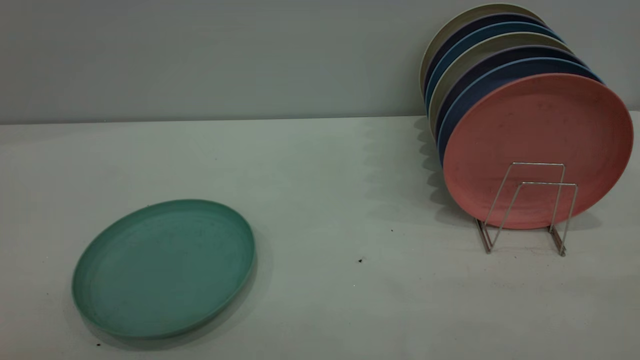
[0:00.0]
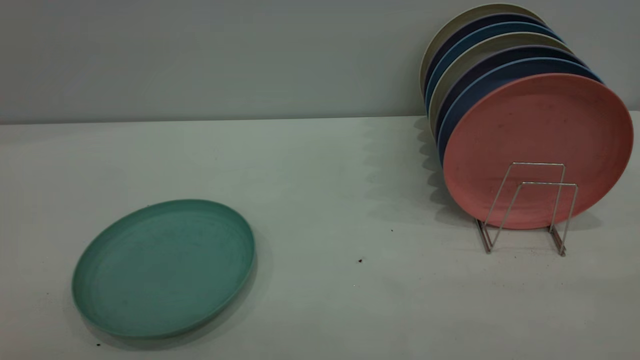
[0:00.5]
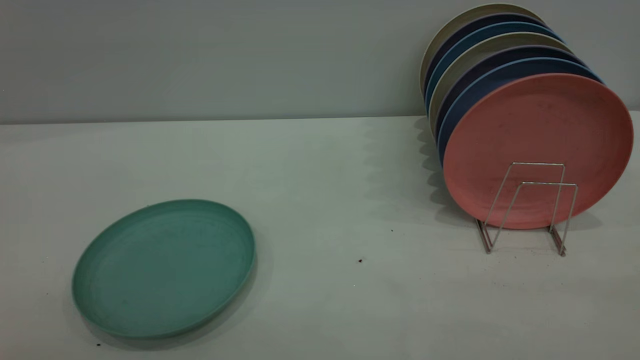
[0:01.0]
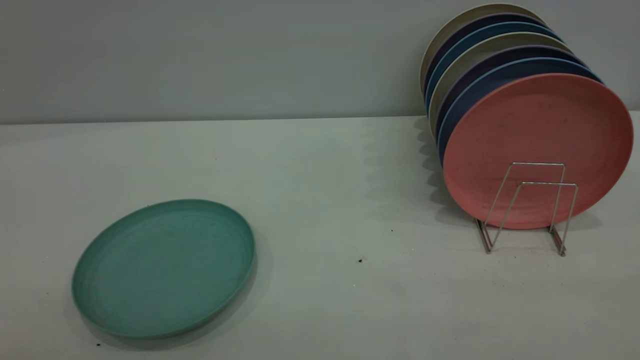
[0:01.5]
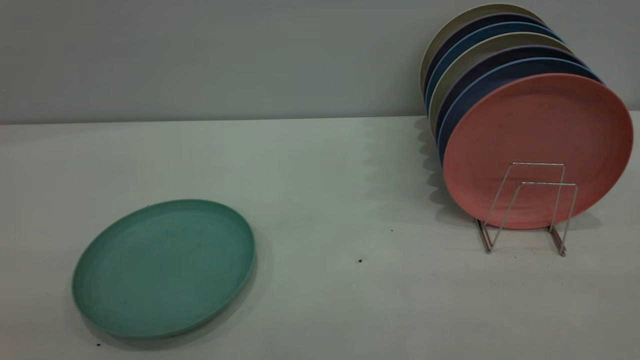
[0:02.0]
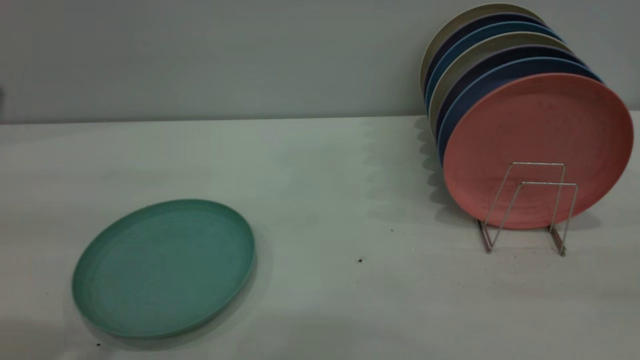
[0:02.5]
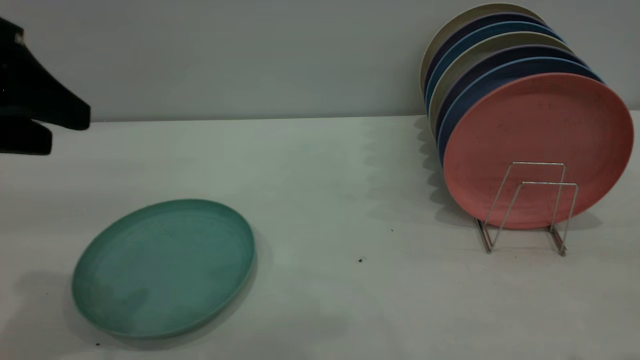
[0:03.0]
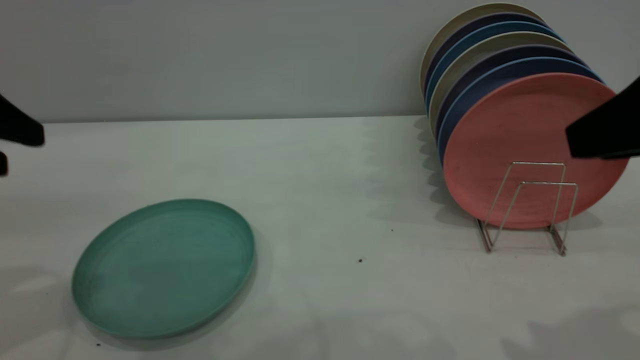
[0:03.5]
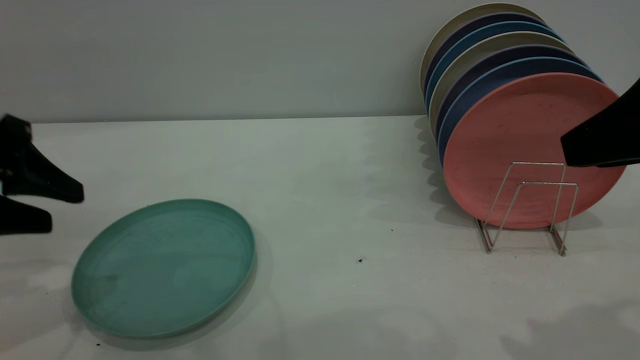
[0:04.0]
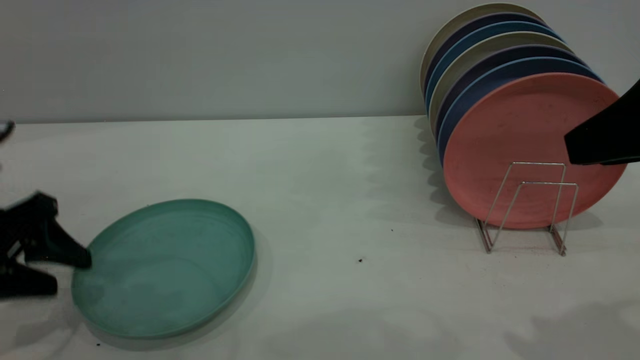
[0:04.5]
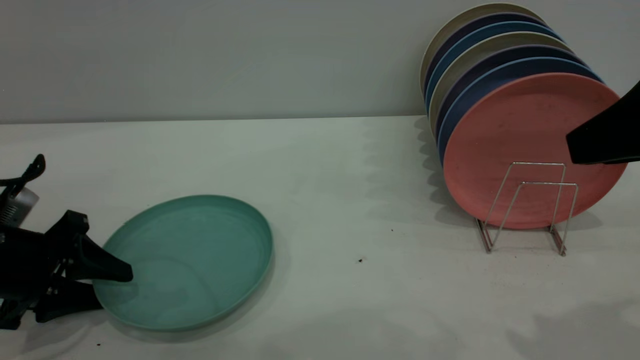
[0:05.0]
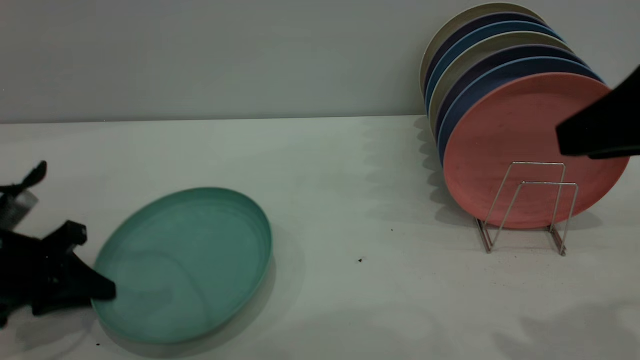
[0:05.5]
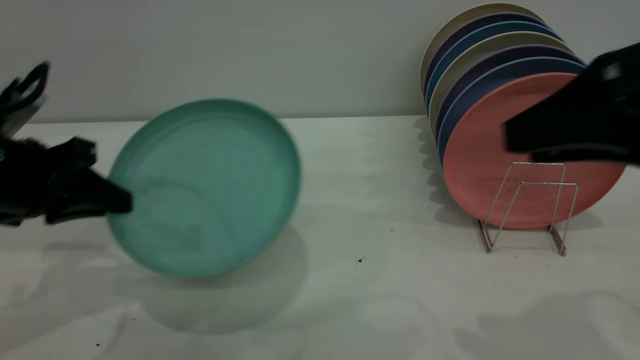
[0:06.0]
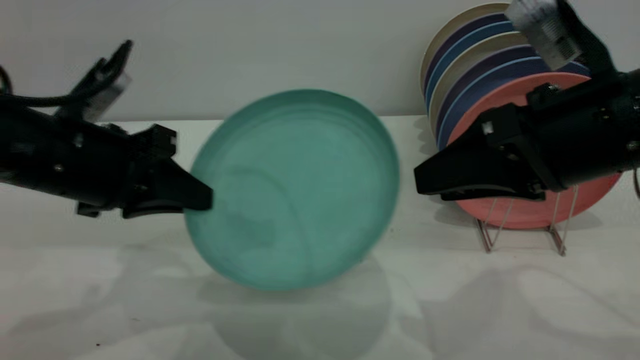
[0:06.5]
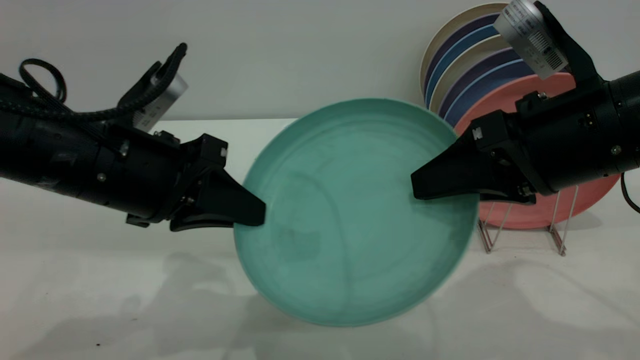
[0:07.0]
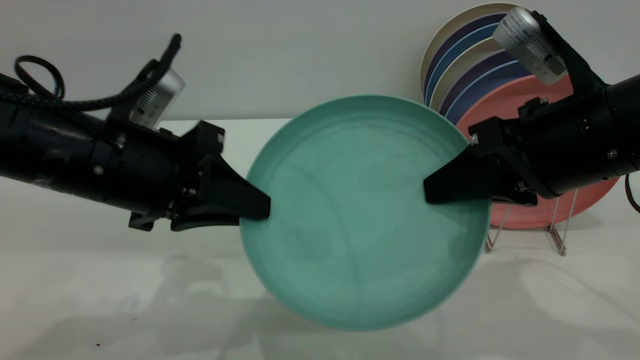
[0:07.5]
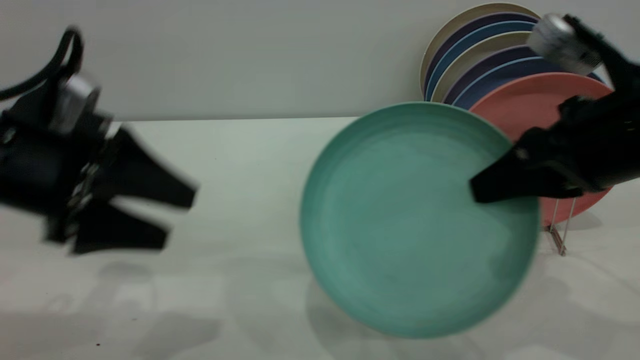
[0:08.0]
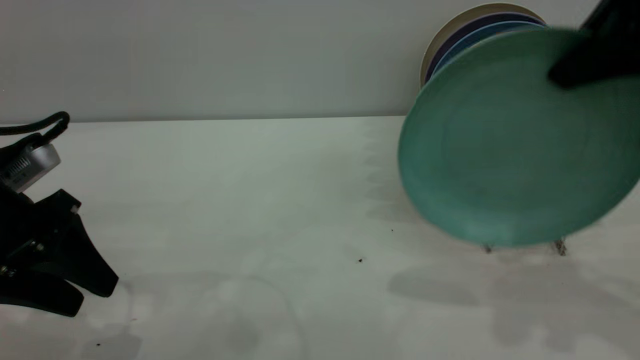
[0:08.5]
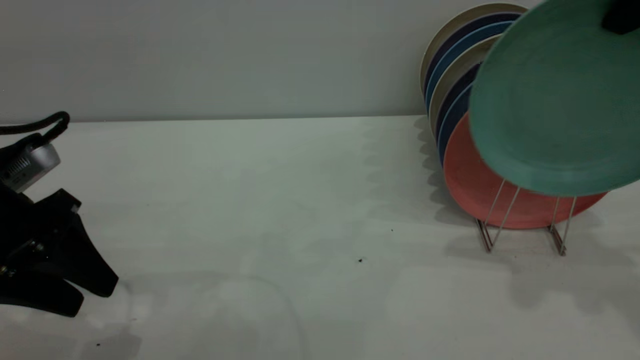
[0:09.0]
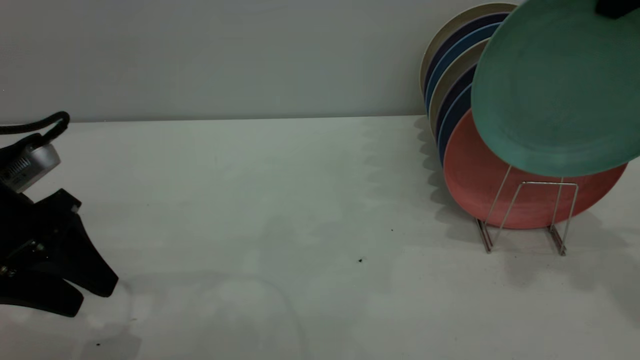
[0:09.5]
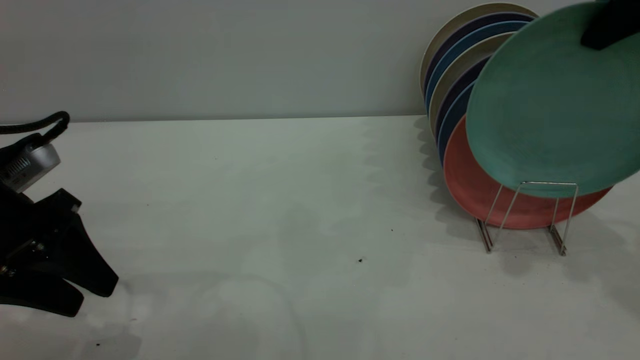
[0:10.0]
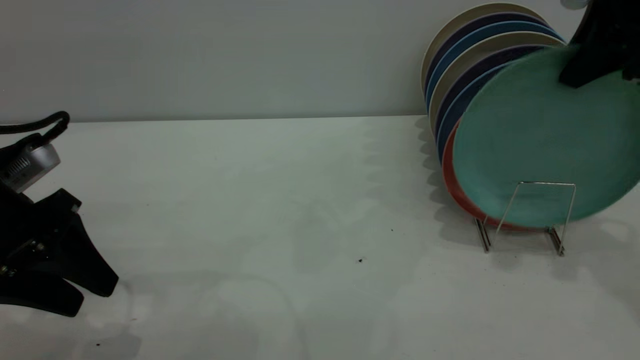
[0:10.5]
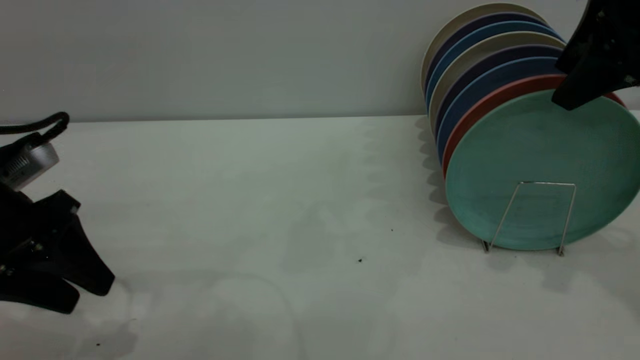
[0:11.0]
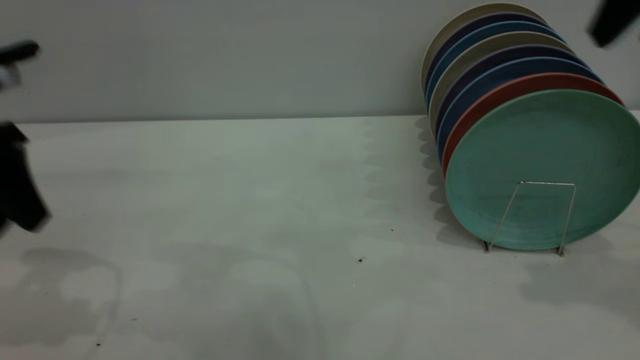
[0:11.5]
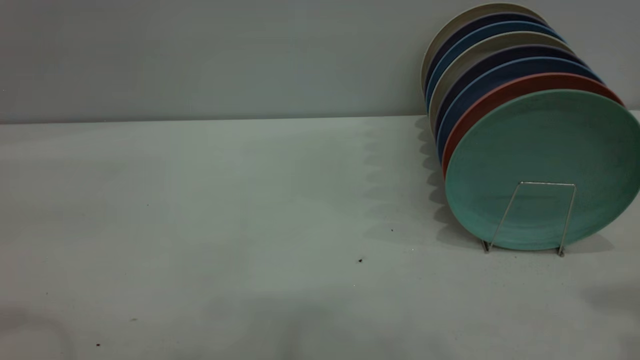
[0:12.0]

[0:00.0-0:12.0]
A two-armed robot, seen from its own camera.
Task of the whole recording: the left gripper grasp the green plate, the left gripper pass the green plate to the right gripper, and the right gripper place the green plate on the plate rack.
Step, 0:00.0 to 0:05.5: Pick up the plate with the left gripper.
Step, 0:06.0 to 0:07.5: Pass the plate from the left gripper to the right gripper.
Step, 0:08.0 to 0:11.0: Place the plate on the shelf.
0:02.0 to 0:04.0: The left gripper shifts approximately 30 cm forward and downward, while the right gripper goes approximately 20 cm forward.
0:04.0 to 0:06.0: The left gripper travels downward and back again, some 10 cm each way, and closes.
0:06.0 to 0:08.0: The right gripper is displaced forward by roughly 5 cm, and closes. Meanwhile the left gripper moves roughly 10 cm to the right and comes back, and opens its fingers.
0:08.0 to 0:10.0: The right gripper goes some 15 cm upward and forward.
0:10.0 to 0:12.0: The left gripper moves upward, about 20 cm. The right gripper is displaced backward and upward by some 20 cm, and opens.

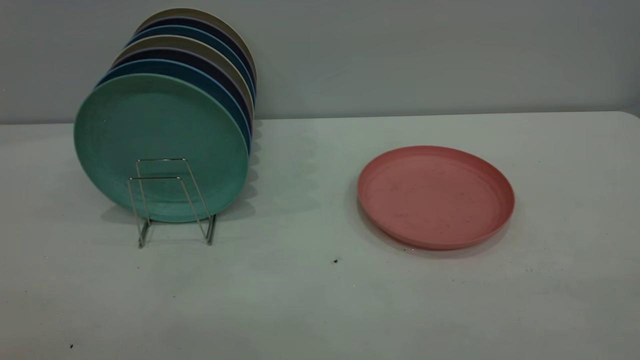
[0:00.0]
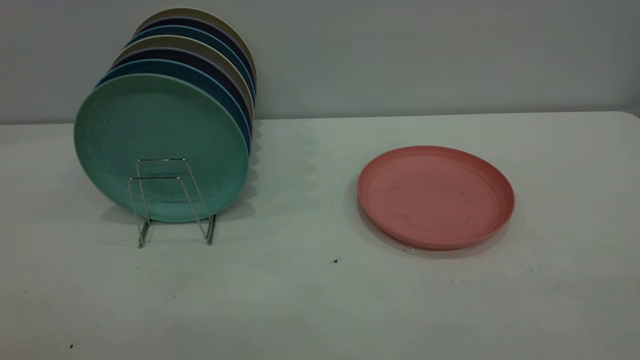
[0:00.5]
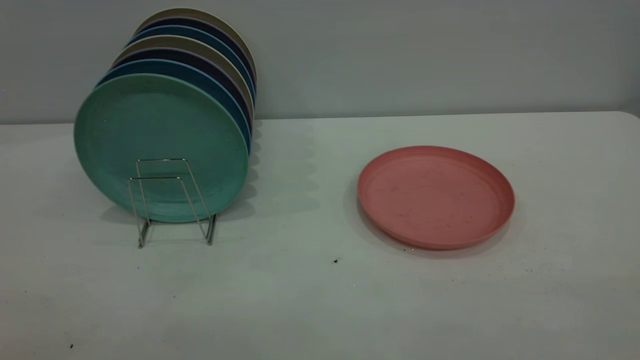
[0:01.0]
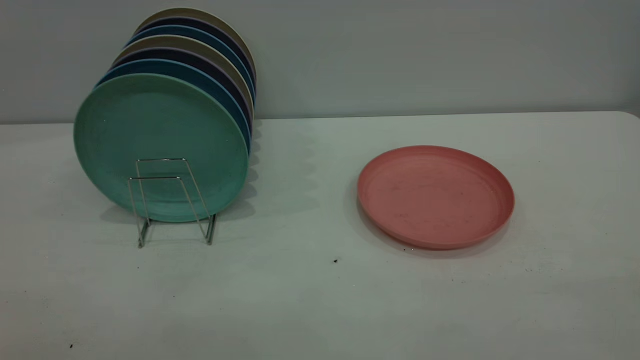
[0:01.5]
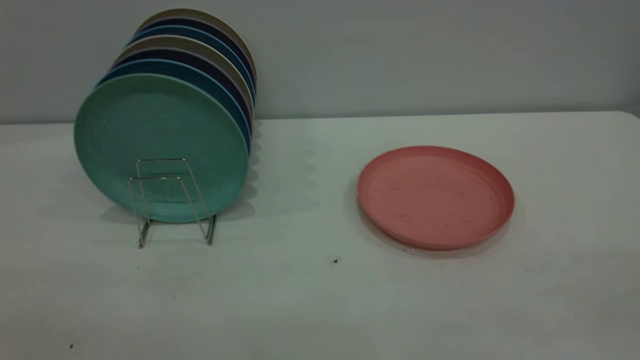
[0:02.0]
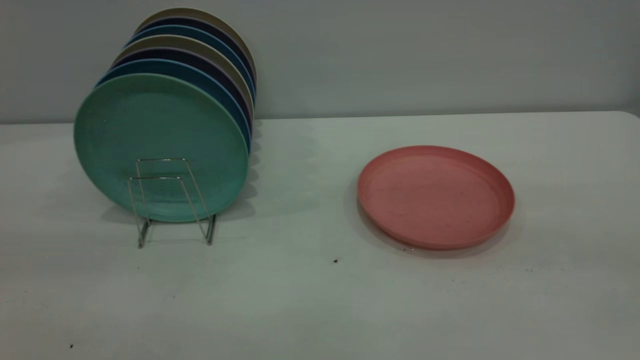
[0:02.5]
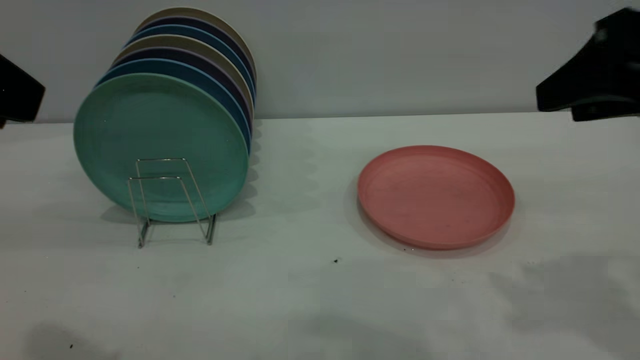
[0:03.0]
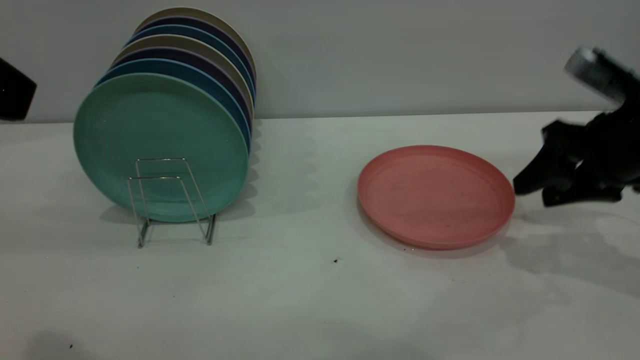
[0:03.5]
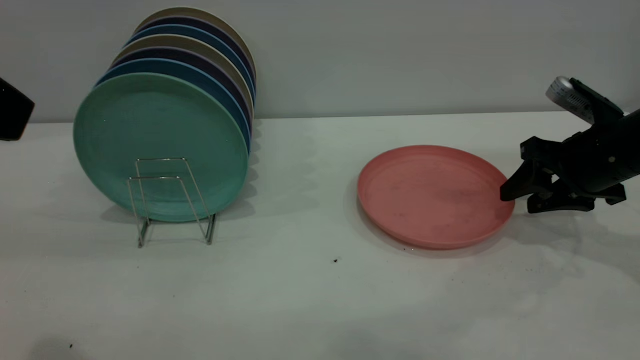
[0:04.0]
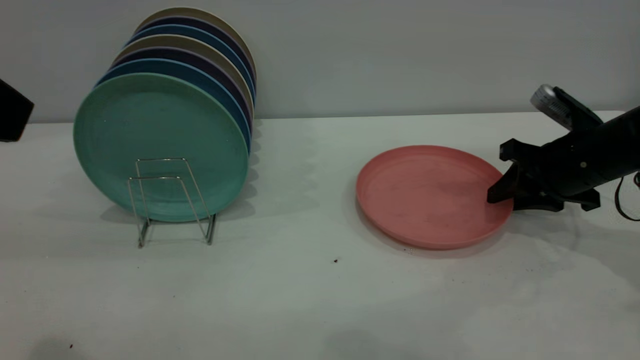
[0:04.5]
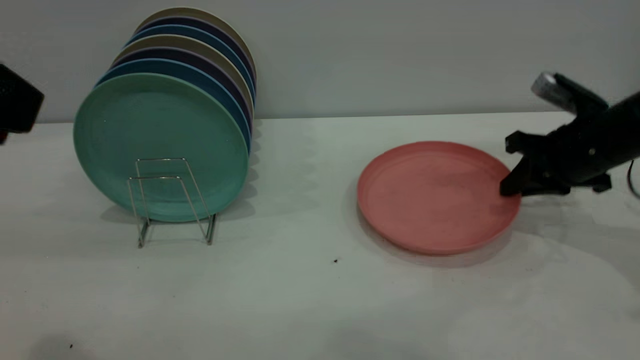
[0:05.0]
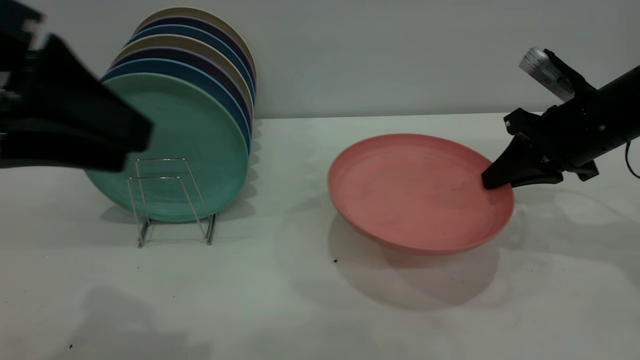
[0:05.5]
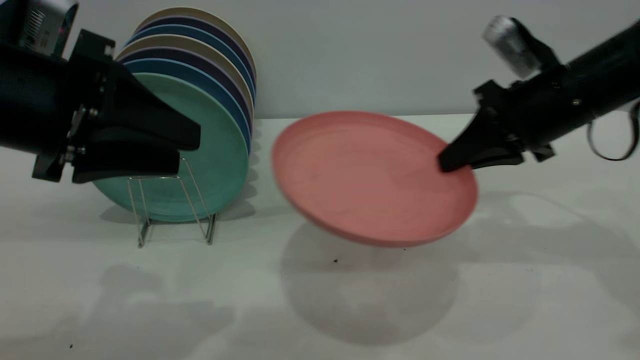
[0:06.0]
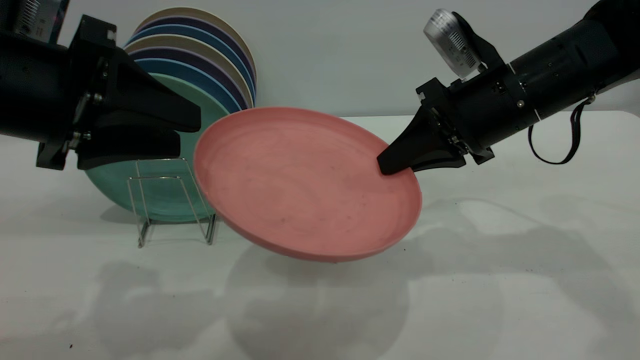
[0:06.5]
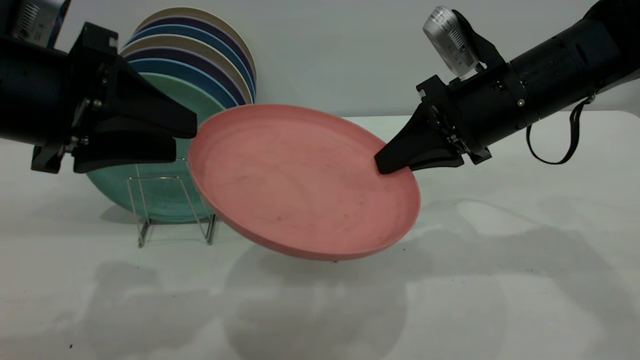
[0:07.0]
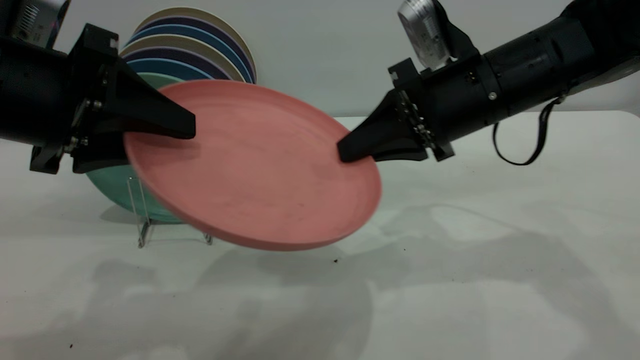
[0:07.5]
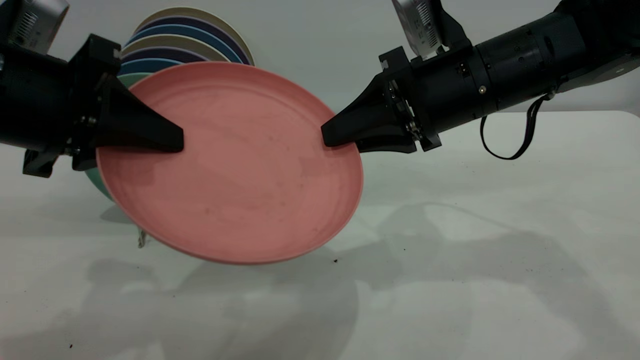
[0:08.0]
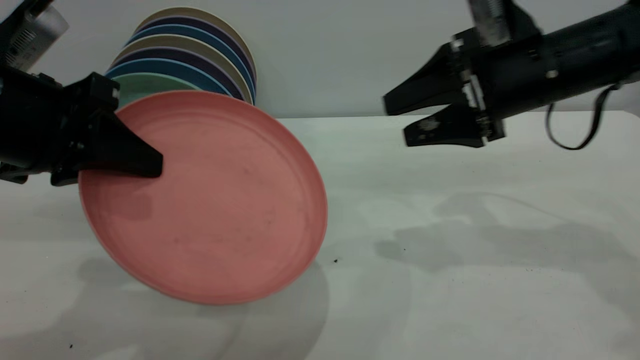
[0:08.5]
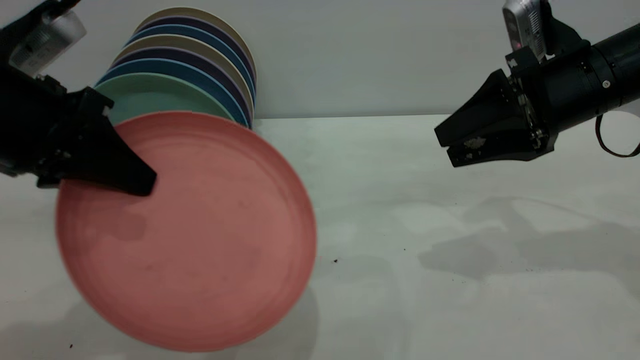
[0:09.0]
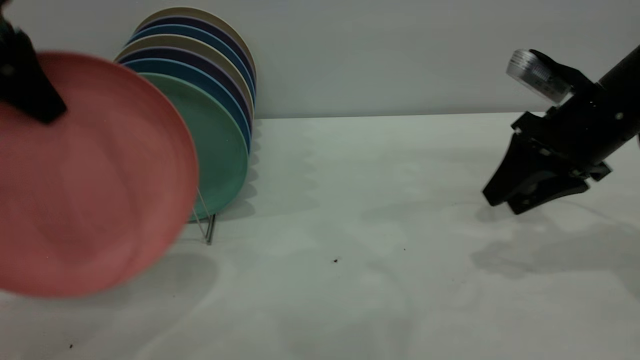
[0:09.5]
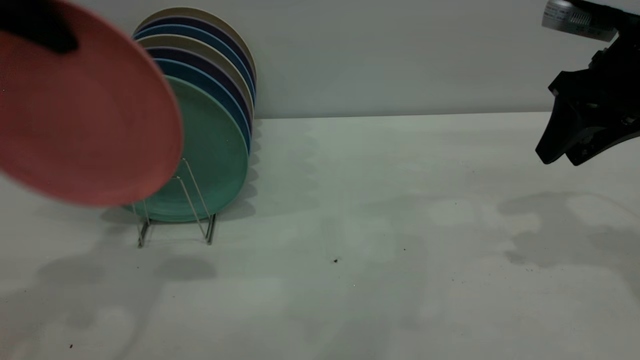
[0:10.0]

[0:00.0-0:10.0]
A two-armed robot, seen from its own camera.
Task of the whole recording: the right gripper grasp the pink plate, the right gripper pass the pink plate to the left gripper, and the left gripper place the pink plate on the plate rack.
Step, 0:00.0 to 0:05.0: Pick up the plate with the right gripper.
Step, 0:05.5 to 0:08.0: Pass the plate from the right gripper to the left gripper.
0:02.0 to 0:04.0: The right gripper shifts approximately 50 cm forward and downward. The left gripper is displaced forward by roughly 15 cm.
0:04.0 to 0:06.0: The left gripper goes about 15 cm downward and forward. Meanwhile the right gripper moves to the left and upward, about 10 cm, and closes.
0:06.0 to 0:08.0: The left gripper closes; the right gripper is displaced to the left by about 10 cm, and opens.
0:08.0 to 0:10.0: The right gripper heads to the right, covering roughly 15 cm, and opens its fingers; the left gripper moves upward and forward, approximately 15 cm.
